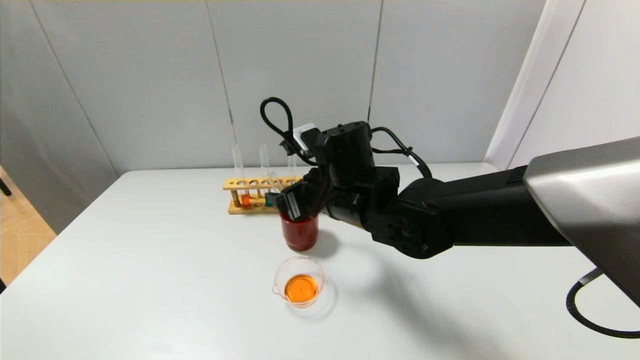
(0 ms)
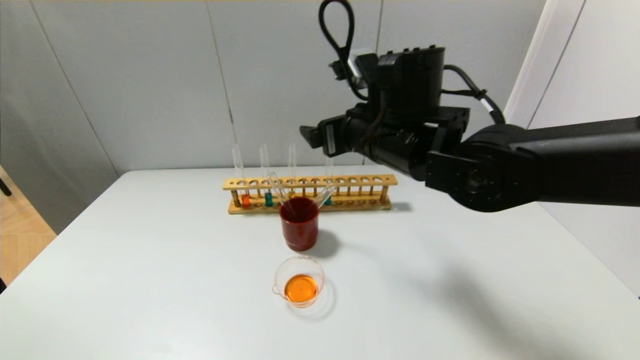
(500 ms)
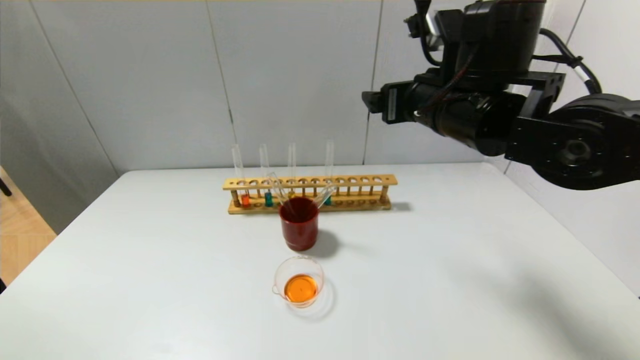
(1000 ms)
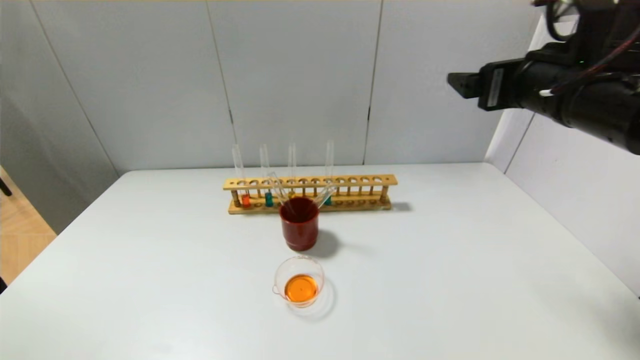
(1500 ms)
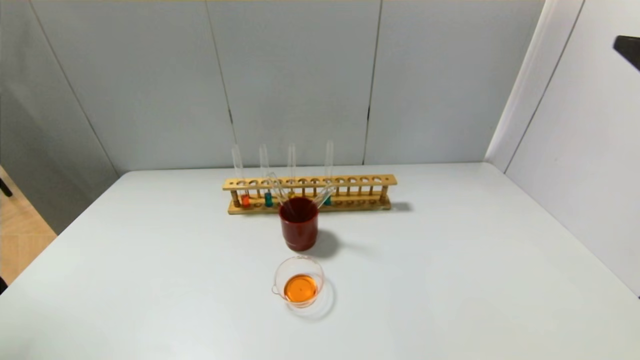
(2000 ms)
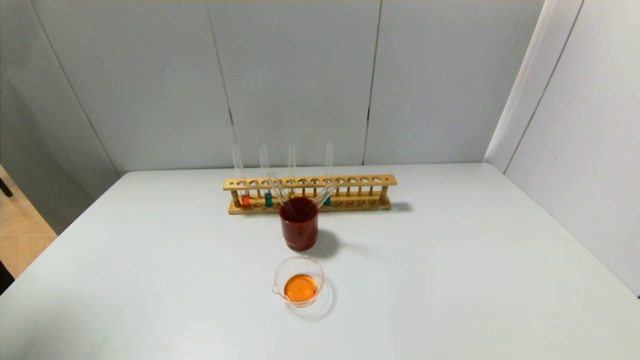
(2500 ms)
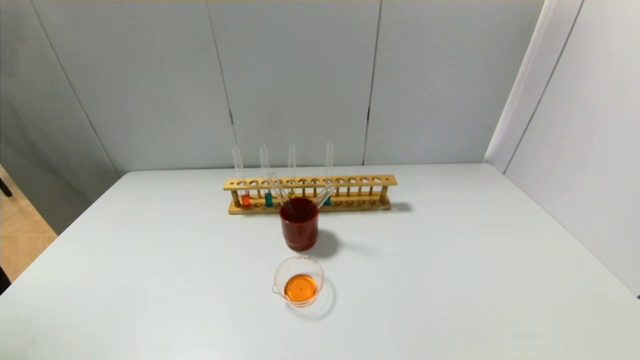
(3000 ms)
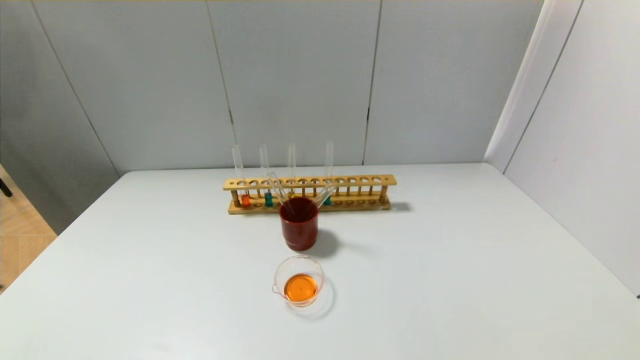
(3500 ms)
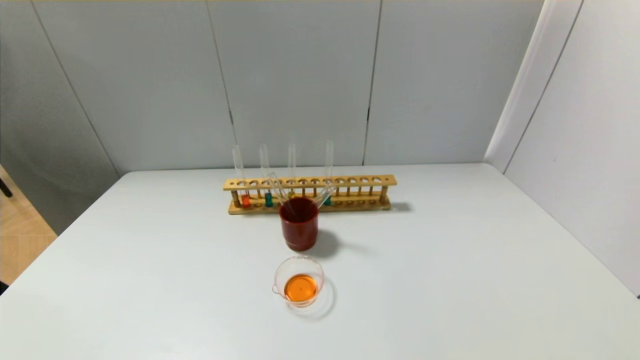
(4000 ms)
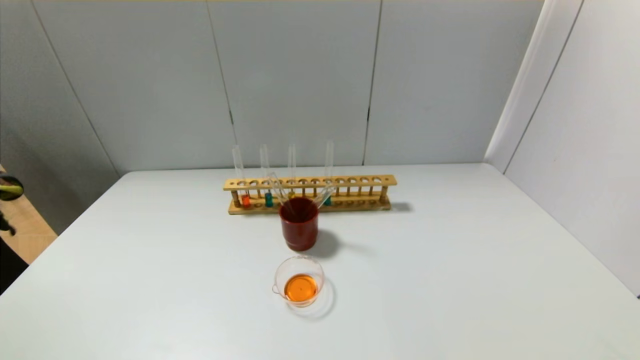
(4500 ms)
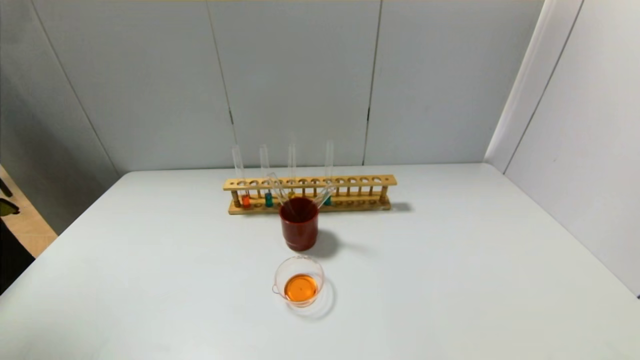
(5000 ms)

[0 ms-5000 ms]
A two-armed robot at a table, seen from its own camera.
0 ms to 2500 ms: The right gripper heads to the right, backward and upward, covering some 50 cm.
